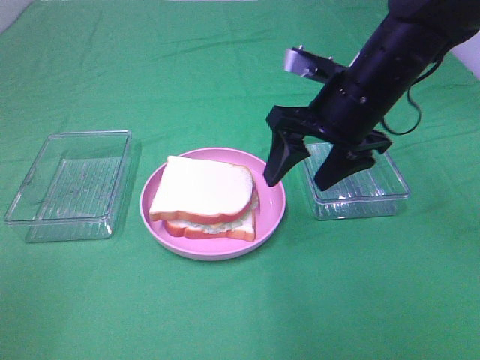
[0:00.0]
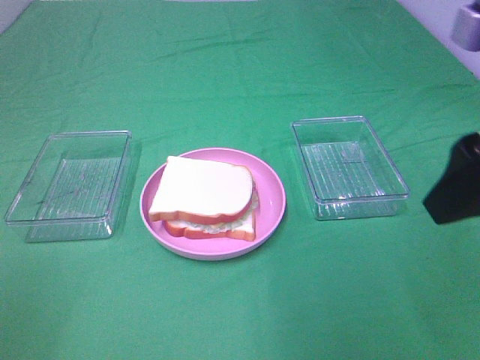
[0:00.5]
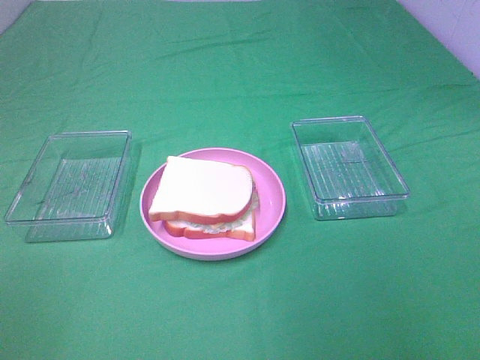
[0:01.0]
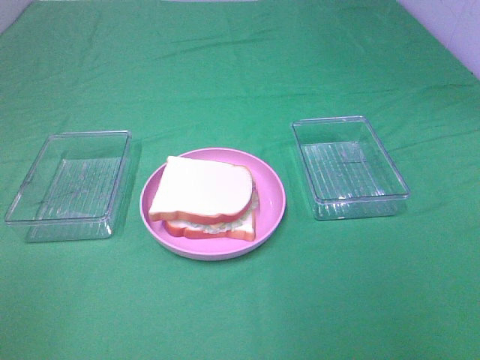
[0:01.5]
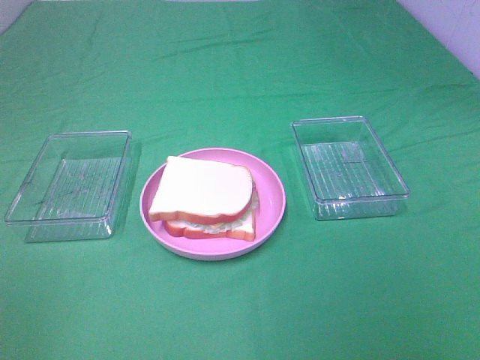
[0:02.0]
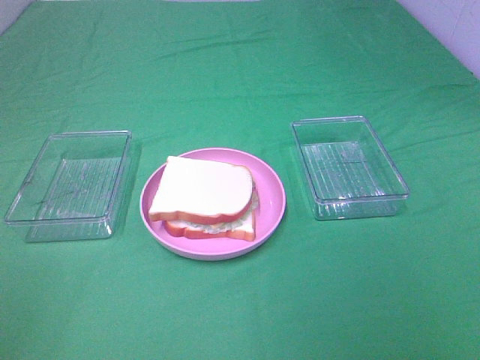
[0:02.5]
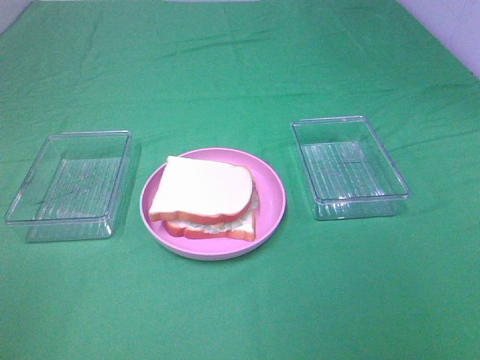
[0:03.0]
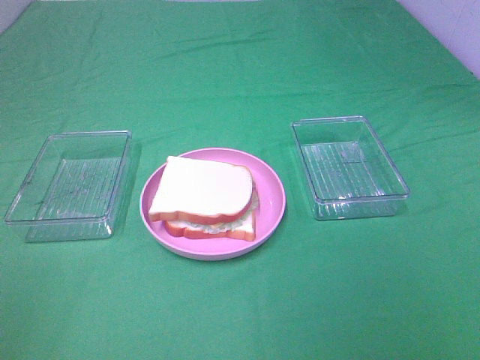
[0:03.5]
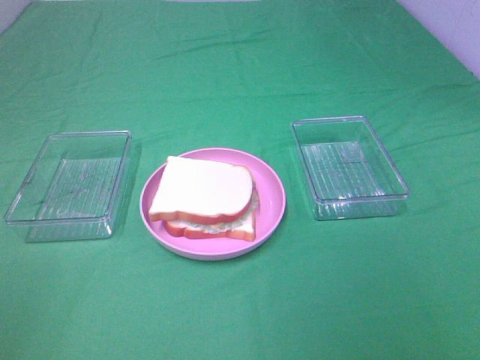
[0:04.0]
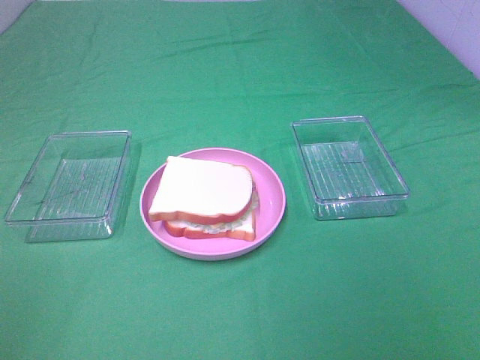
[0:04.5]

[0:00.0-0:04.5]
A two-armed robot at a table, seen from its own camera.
Task of the whole recording: Make sandwiches.
0:00.0 to 0:02.0: The right gripper shifts approximately 35 cm backward and to the right.
